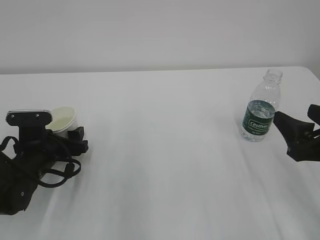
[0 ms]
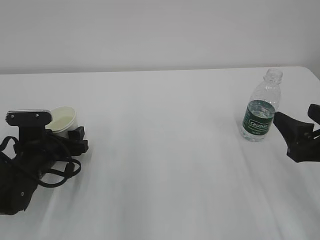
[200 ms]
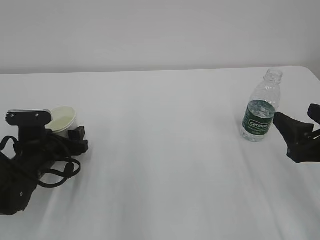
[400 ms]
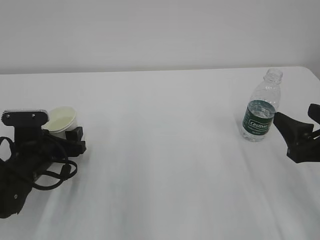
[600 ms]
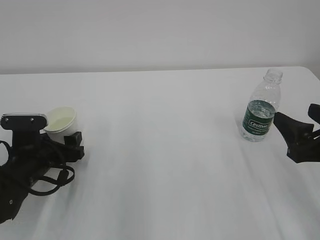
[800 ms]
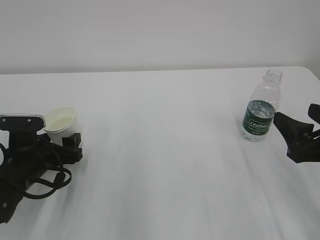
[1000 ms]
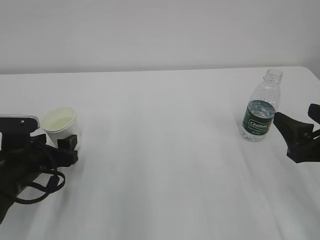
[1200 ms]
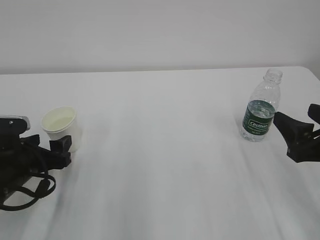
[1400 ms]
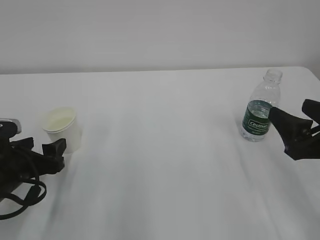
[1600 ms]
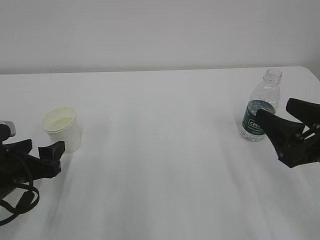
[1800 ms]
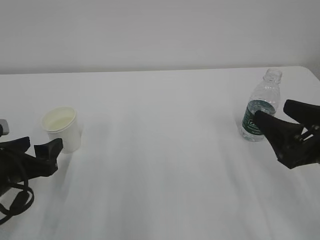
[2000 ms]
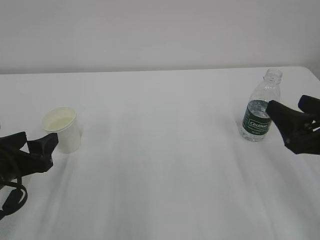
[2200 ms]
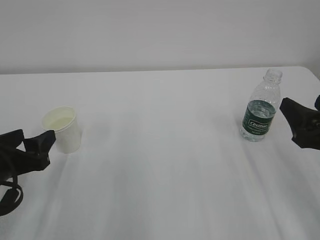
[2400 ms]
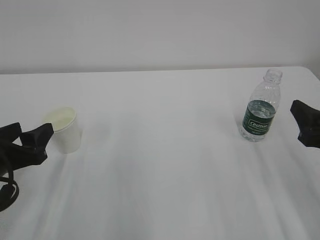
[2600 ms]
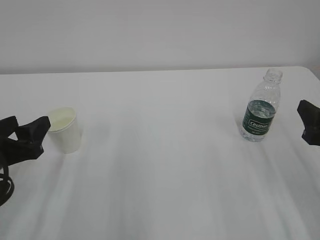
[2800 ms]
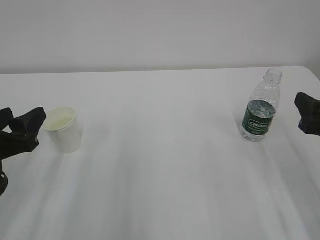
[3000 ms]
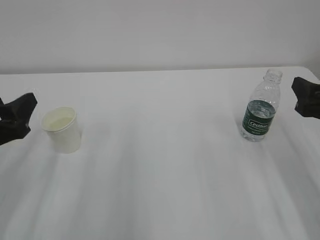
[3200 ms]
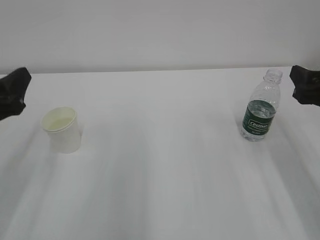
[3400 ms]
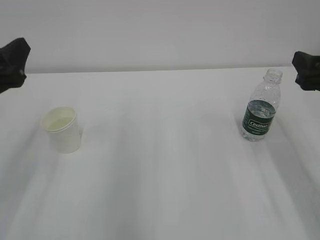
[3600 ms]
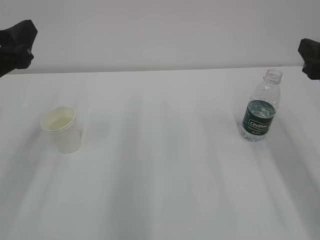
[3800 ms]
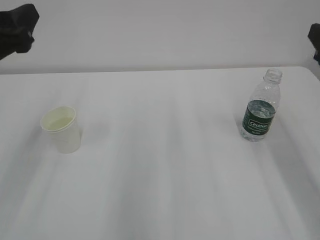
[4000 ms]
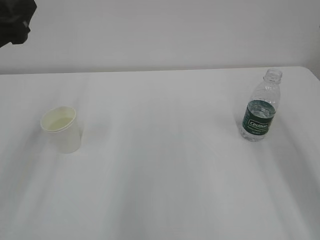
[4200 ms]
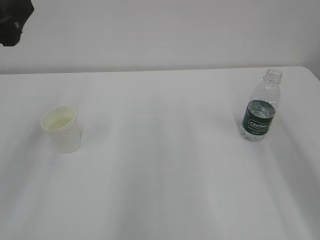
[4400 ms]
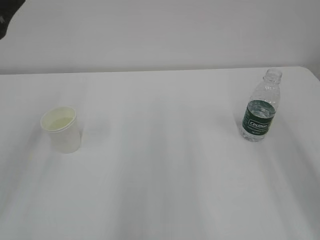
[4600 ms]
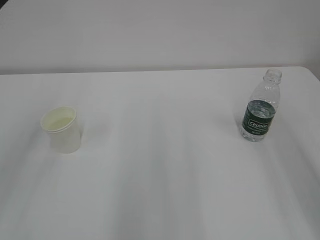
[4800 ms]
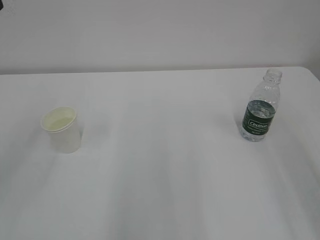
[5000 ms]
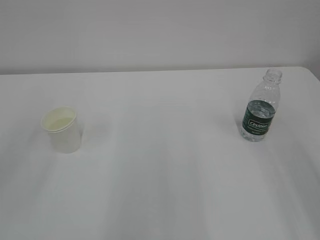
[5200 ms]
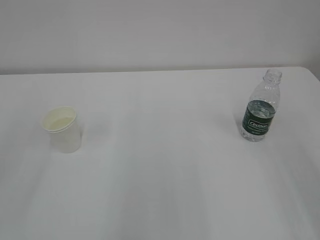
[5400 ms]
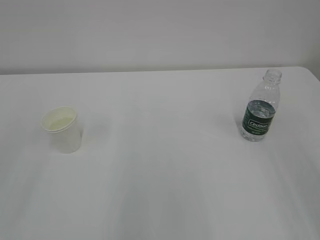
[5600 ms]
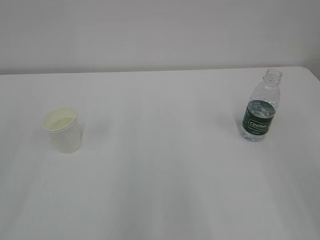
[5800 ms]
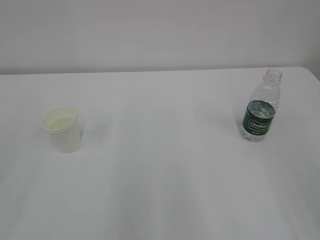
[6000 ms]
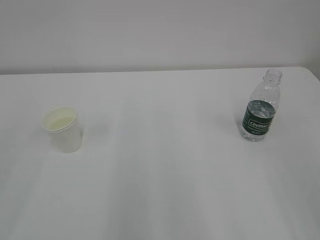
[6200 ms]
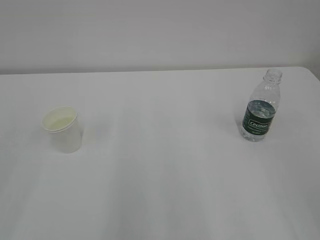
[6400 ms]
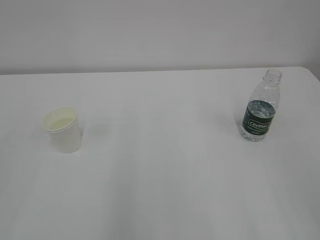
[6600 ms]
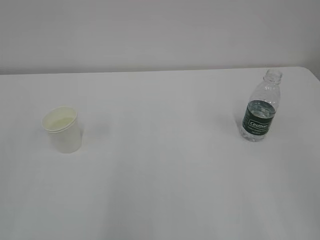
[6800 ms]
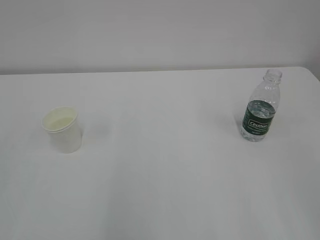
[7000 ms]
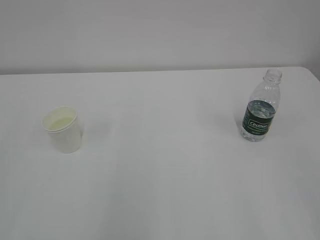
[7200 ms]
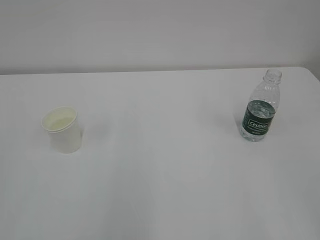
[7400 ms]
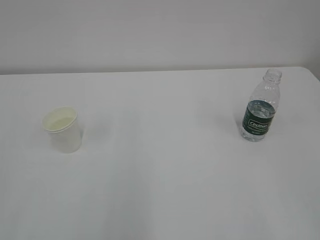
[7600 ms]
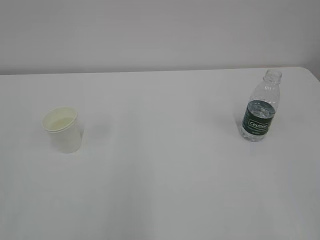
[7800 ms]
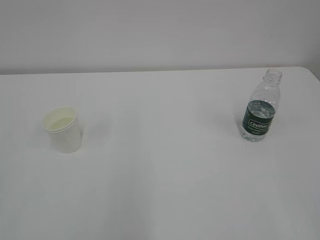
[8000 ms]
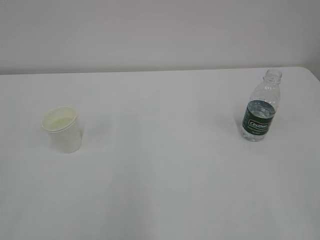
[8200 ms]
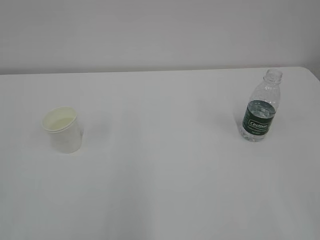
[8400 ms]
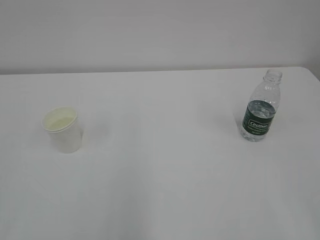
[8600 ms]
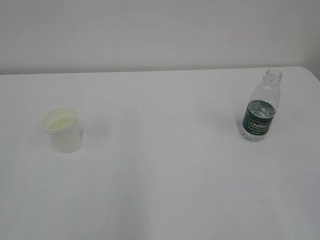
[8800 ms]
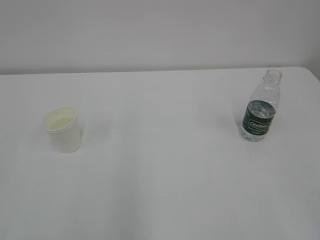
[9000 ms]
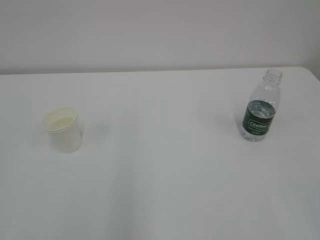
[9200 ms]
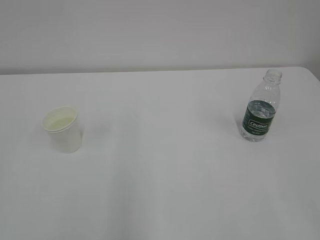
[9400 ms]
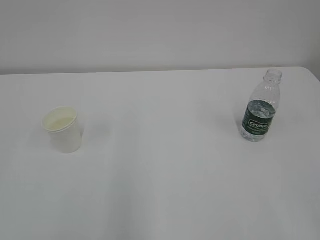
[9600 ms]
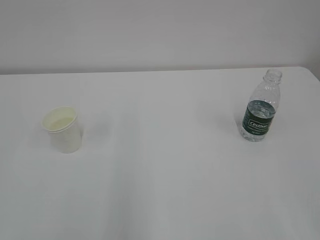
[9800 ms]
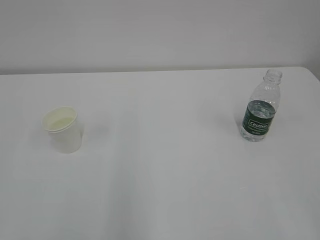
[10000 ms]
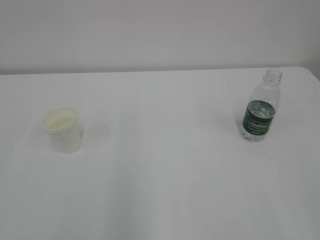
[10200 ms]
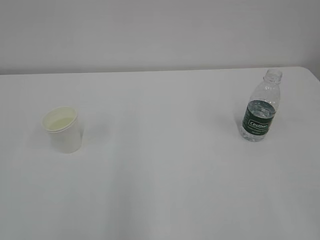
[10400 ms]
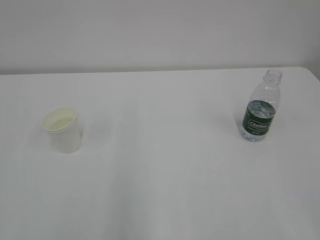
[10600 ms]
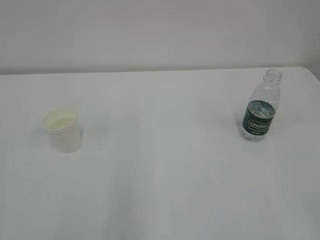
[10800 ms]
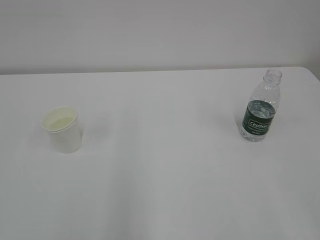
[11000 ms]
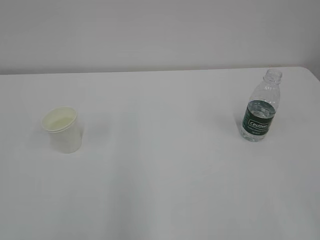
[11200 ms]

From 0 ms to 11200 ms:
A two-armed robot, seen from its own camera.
From 0 ms to 1600 ms: The left gripper travels backward by roughly 5 cm.
From 1600 ms to 3200 ms: The left gripper moves upward, some 10 cm.
From 3200 ms to 4800 ms: The right gripper travels upward and backward by approximately 20 cm. The left gripper travels upward by approximately 15 cm.
From 9600 ms to 11200 ms: The two grippers keep their place.

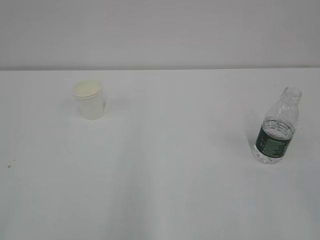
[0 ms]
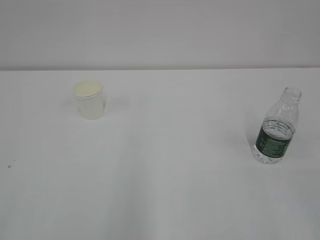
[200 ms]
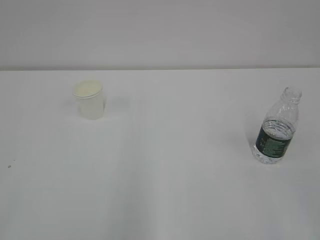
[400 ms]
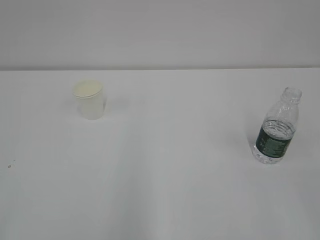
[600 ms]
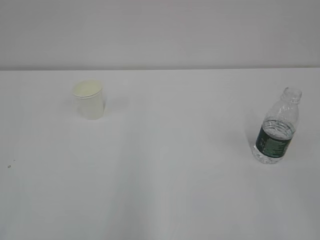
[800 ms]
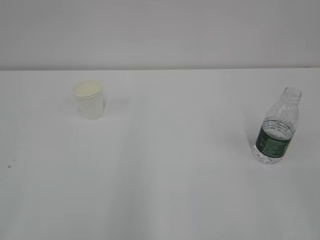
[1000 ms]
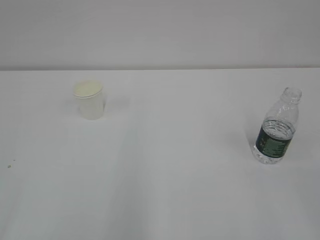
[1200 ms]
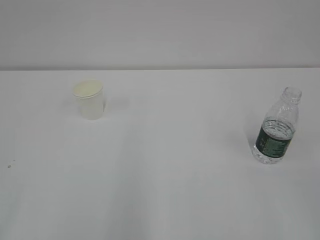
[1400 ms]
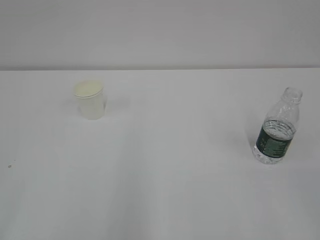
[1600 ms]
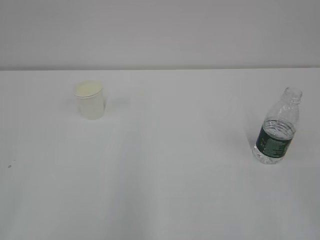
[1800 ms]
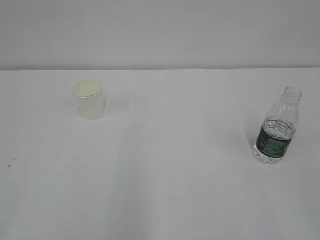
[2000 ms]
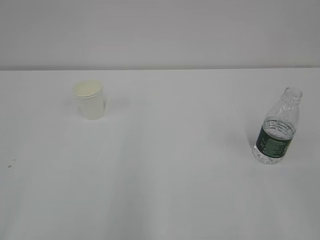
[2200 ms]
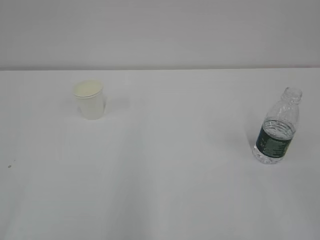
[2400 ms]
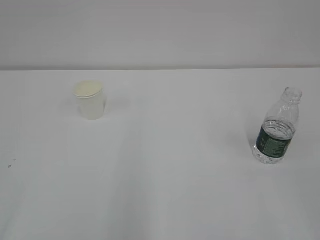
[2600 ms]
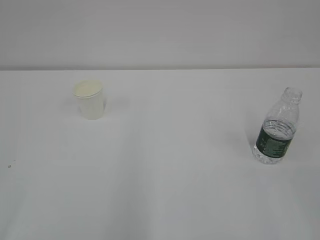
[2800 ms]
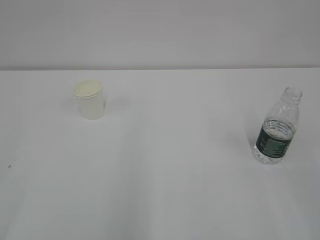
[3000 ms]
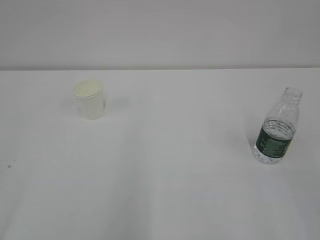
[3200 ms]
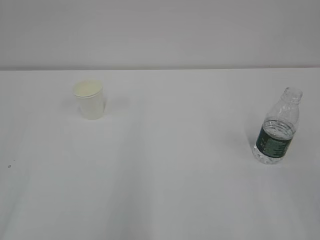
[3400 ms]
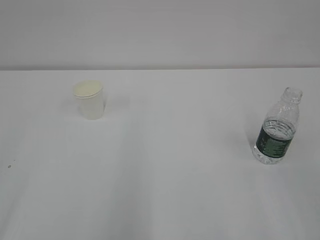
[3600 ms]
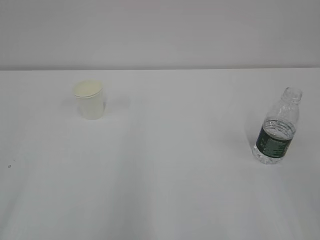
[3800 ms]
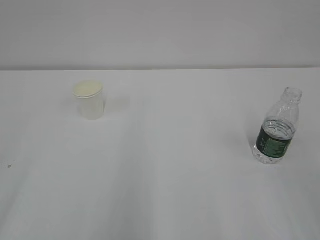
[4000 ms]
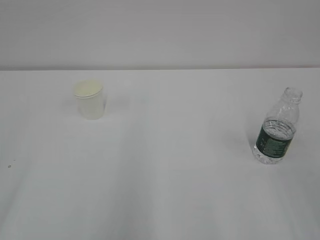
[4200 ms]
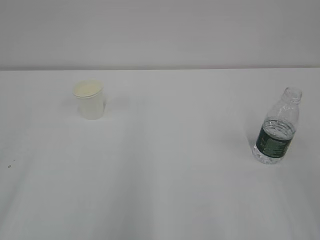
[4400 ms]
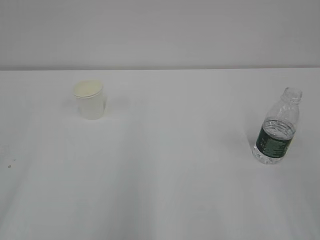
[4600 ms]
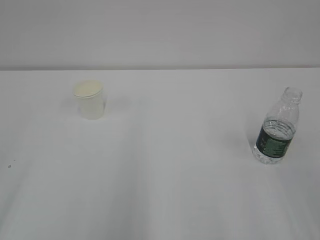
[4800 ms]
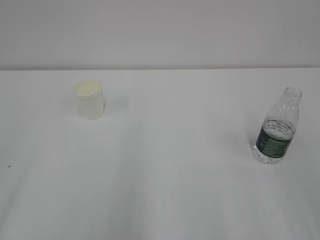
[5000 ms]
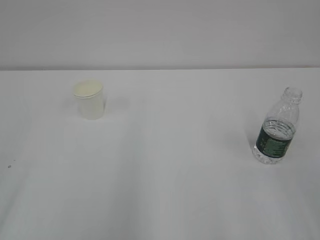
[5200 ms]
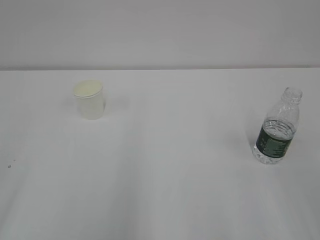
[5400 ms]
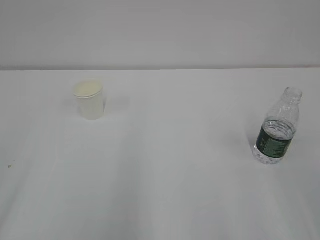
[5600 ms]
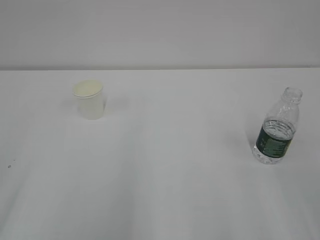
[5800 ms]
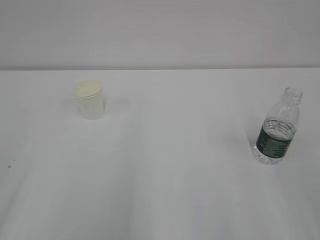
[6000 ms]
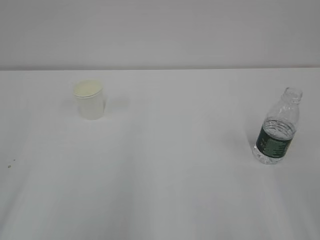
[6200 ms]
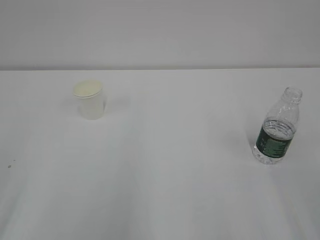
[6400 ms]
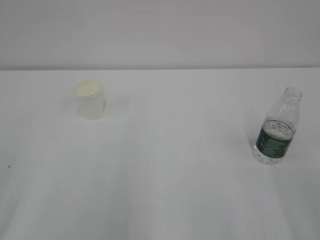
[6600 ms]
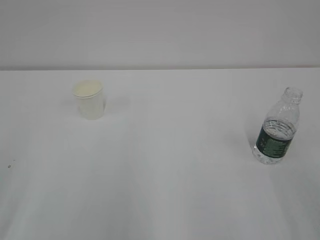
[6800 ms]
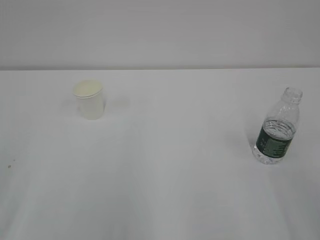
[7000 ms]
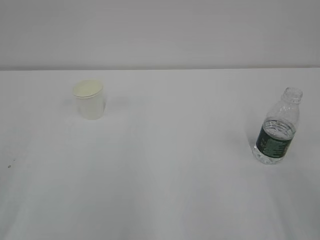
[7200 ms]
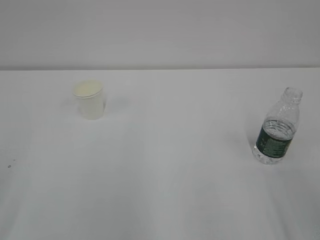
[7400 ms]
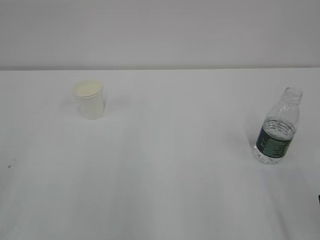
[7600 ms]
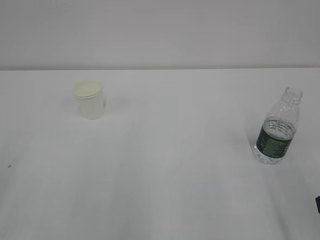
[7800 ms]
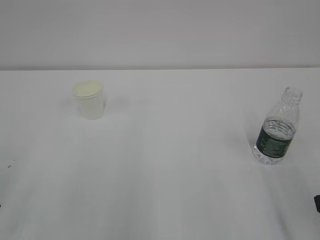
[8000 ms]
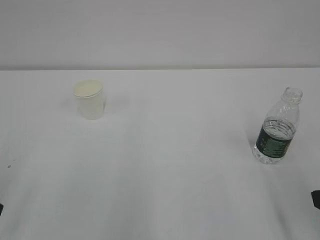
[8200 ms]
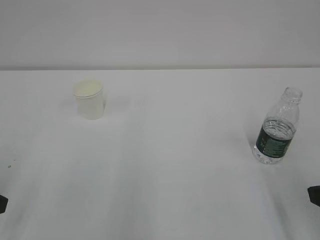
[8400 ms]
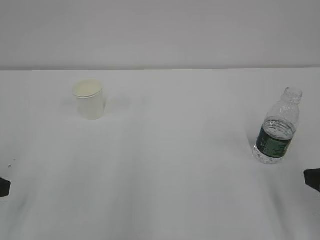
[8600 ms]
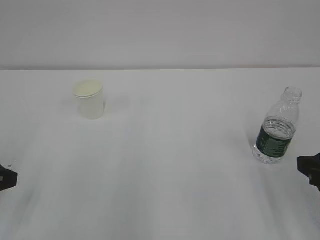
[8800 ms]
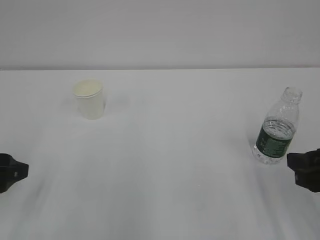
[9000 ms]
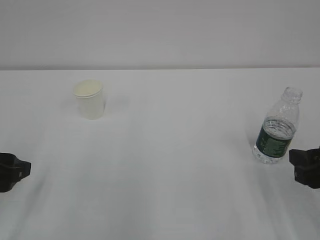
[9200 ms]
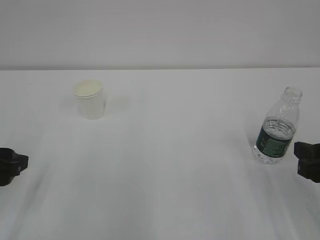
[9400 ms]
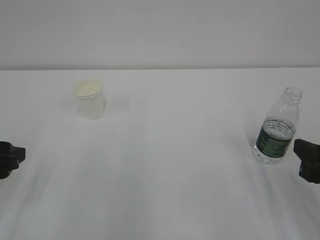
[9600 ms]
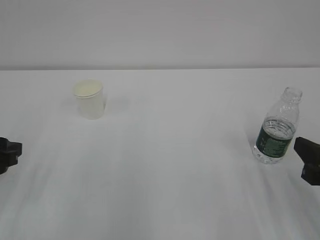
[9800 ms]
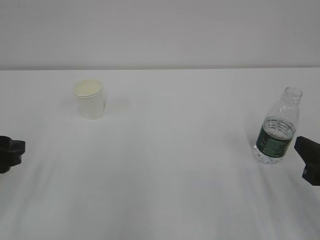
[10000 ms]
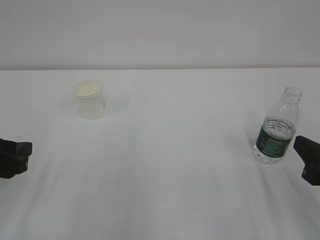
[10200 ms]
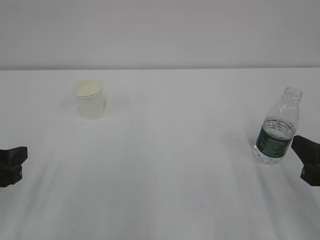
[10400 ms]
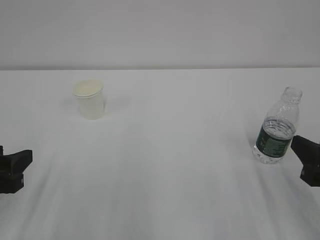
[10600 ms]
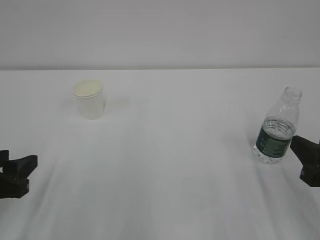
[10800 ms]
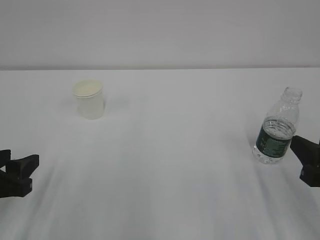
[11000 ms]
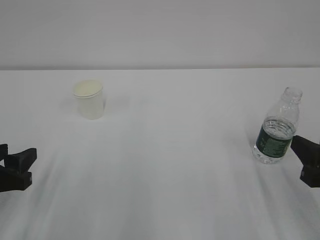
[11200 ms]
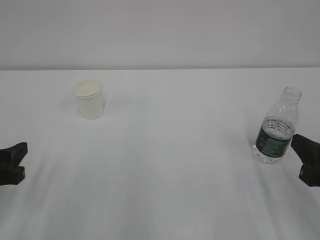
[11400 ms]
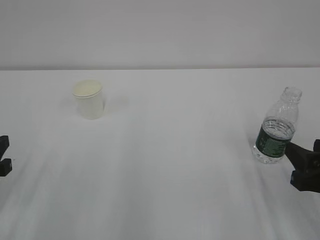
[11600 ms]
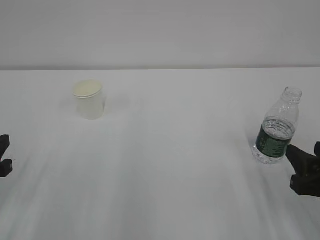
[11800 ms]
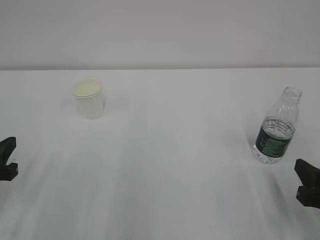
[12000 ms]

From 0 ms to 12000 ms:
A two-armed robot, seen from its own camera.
From 7600 ms to 9000 ms: Both grippers travel together forward, roughly 5 cm. The right gripper closes.
From 10400 ms to 12000 ms: The right gripper shifts approximately 5 cm downward. The left gripper closes its fingers.
